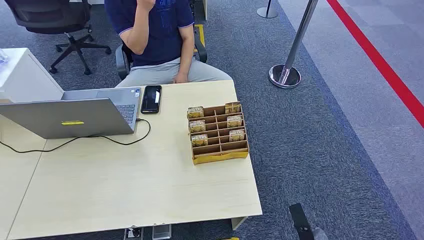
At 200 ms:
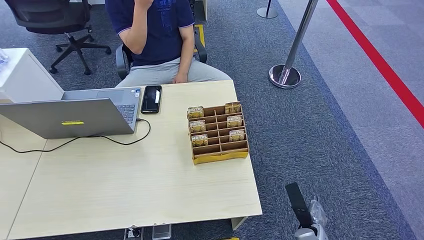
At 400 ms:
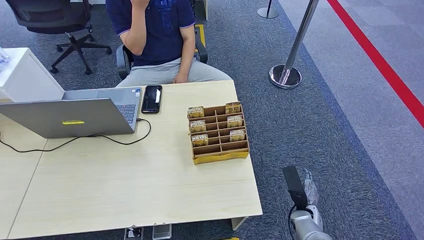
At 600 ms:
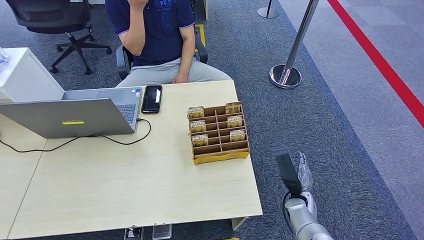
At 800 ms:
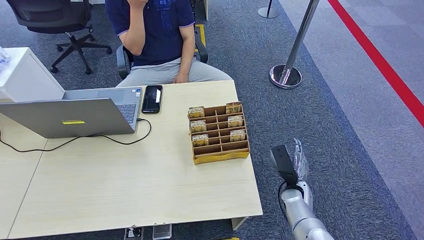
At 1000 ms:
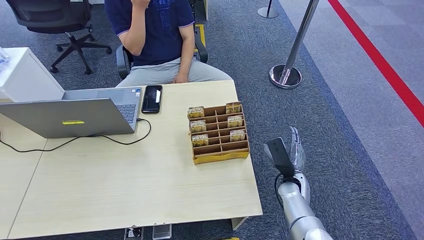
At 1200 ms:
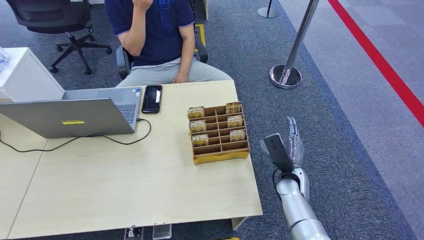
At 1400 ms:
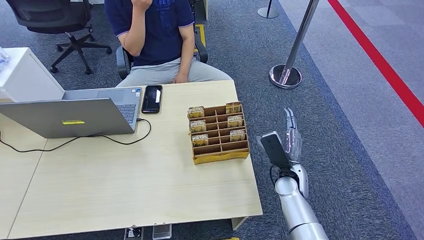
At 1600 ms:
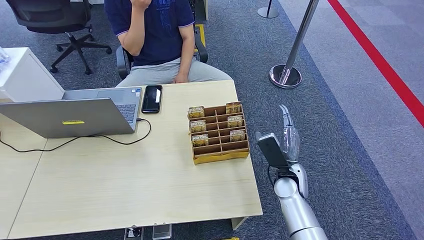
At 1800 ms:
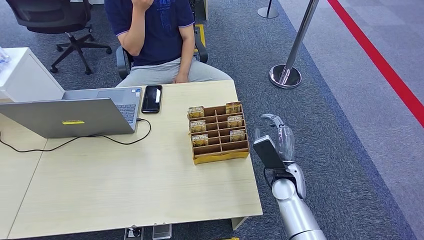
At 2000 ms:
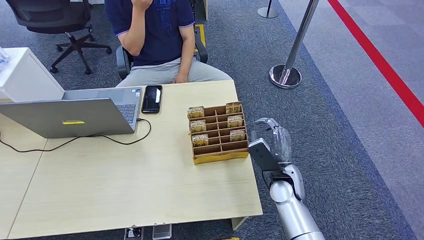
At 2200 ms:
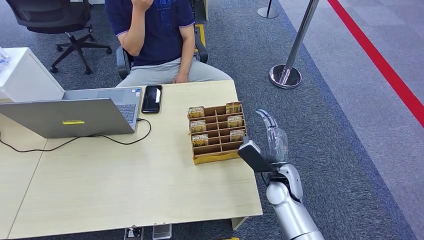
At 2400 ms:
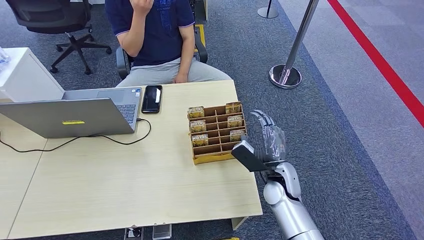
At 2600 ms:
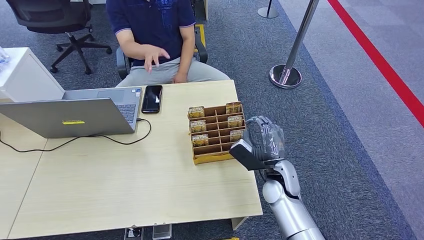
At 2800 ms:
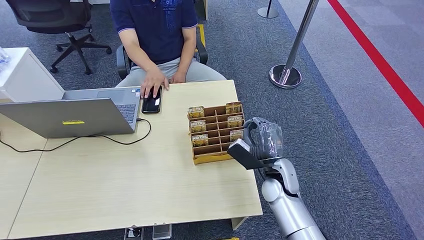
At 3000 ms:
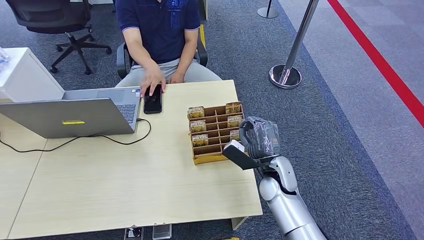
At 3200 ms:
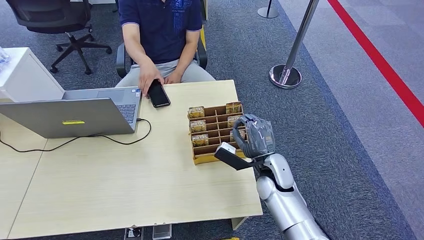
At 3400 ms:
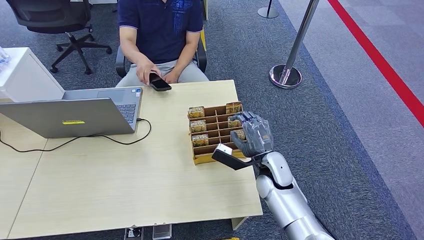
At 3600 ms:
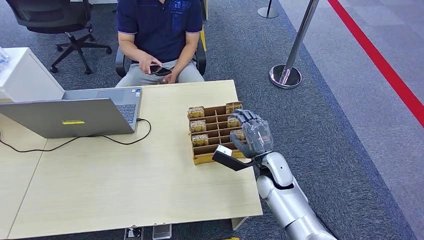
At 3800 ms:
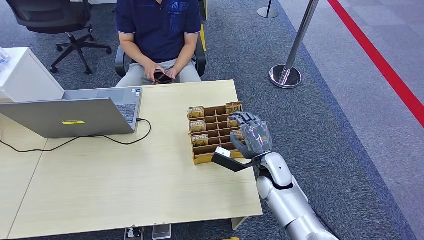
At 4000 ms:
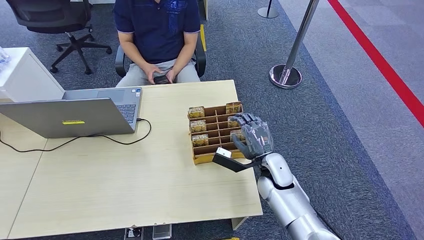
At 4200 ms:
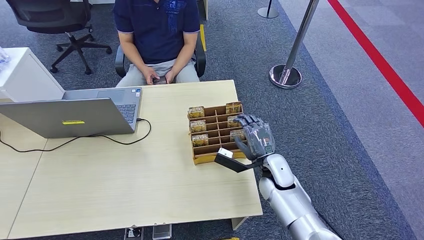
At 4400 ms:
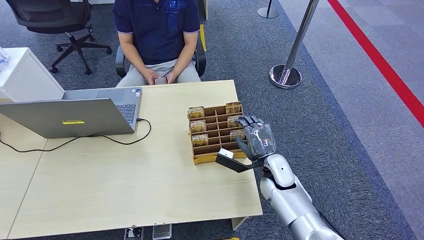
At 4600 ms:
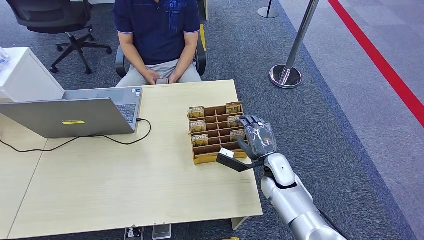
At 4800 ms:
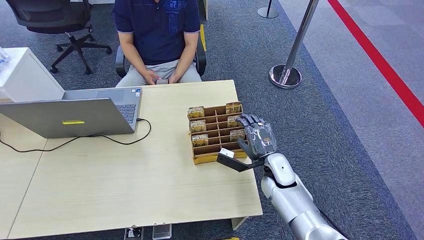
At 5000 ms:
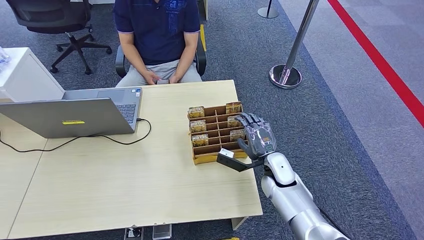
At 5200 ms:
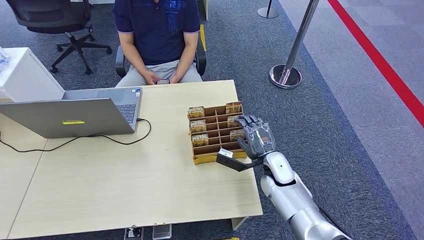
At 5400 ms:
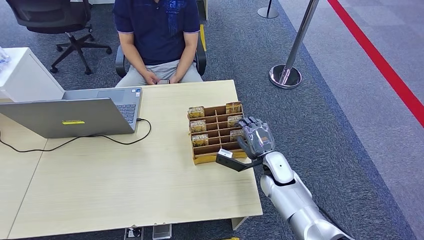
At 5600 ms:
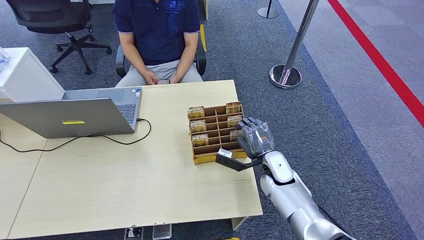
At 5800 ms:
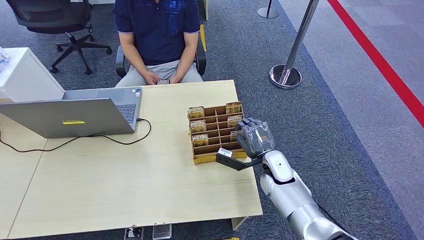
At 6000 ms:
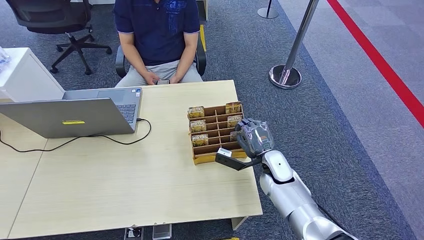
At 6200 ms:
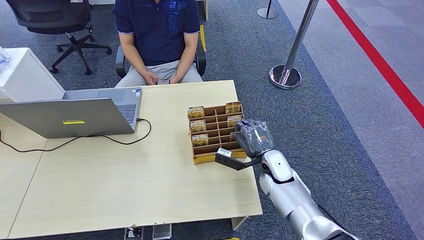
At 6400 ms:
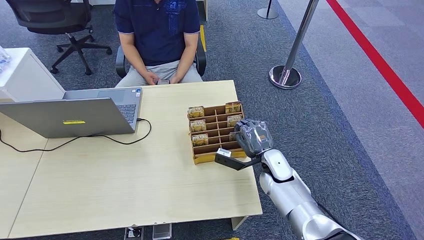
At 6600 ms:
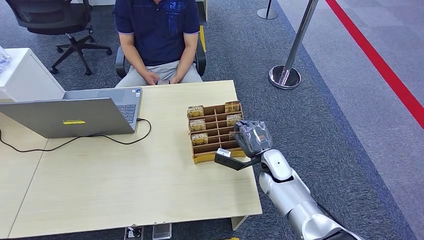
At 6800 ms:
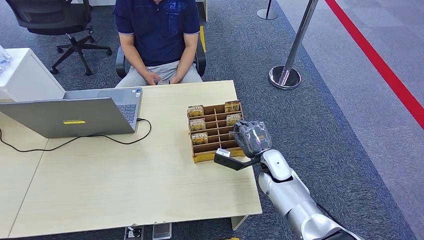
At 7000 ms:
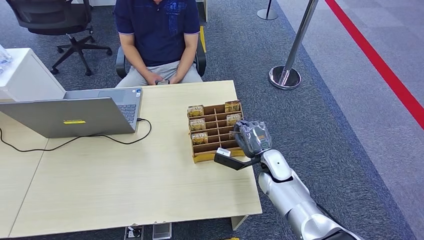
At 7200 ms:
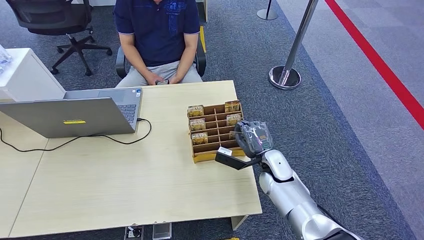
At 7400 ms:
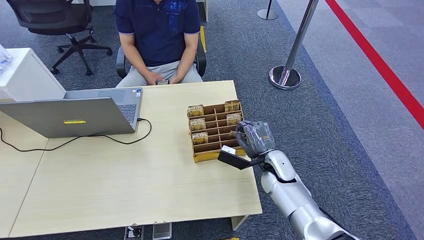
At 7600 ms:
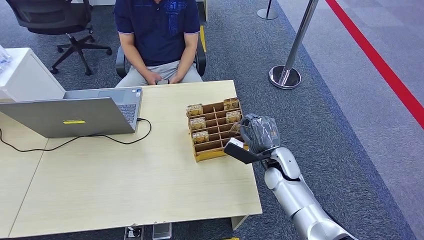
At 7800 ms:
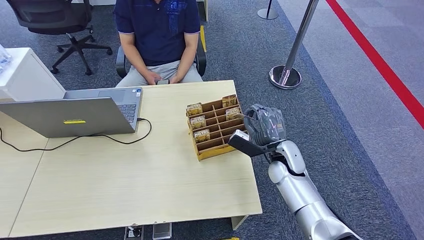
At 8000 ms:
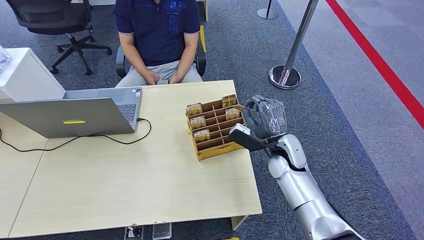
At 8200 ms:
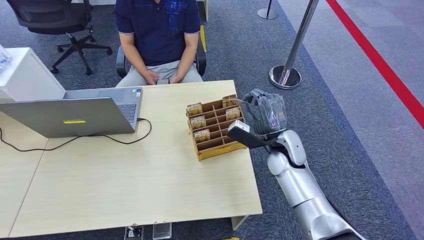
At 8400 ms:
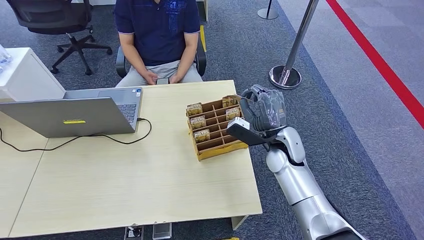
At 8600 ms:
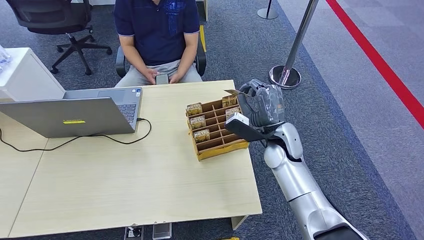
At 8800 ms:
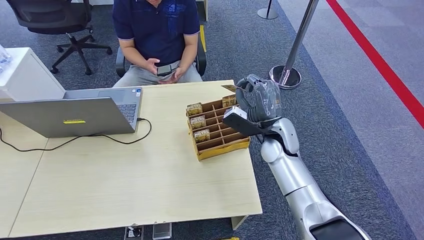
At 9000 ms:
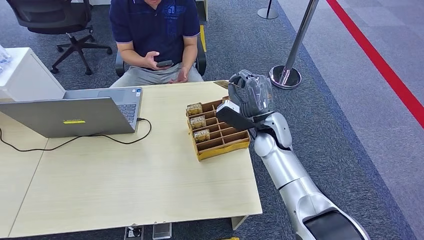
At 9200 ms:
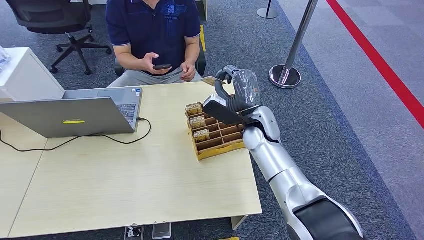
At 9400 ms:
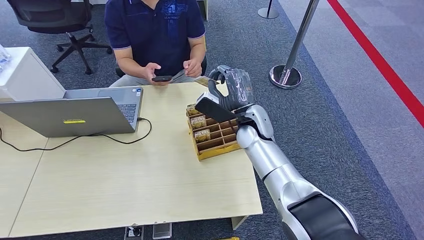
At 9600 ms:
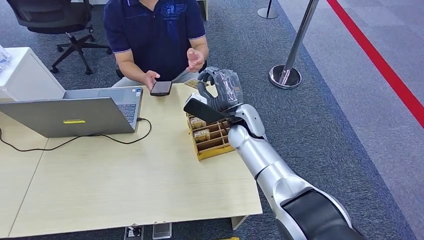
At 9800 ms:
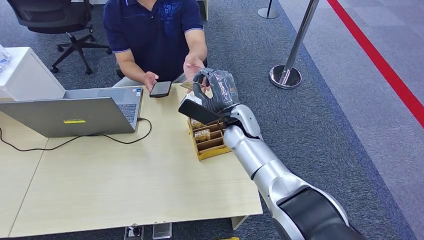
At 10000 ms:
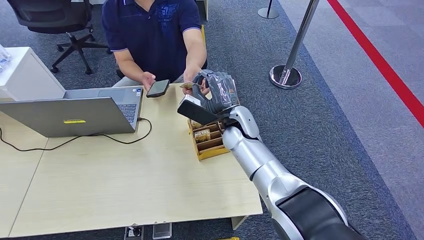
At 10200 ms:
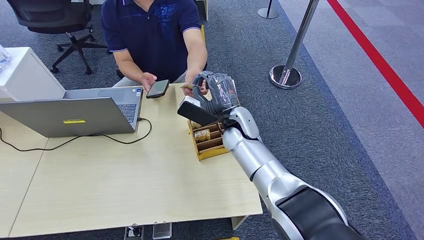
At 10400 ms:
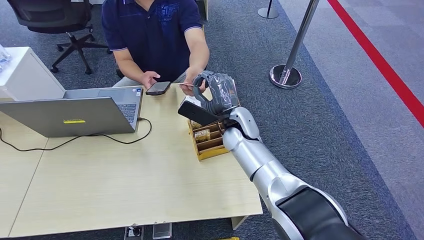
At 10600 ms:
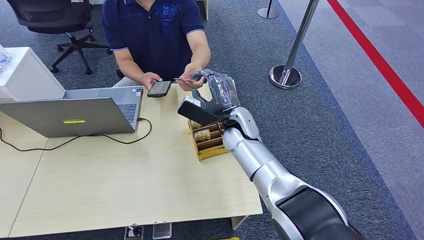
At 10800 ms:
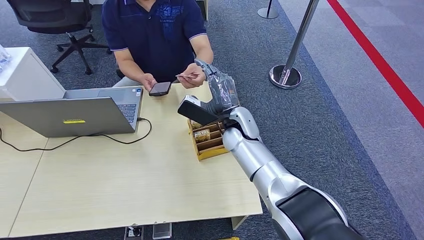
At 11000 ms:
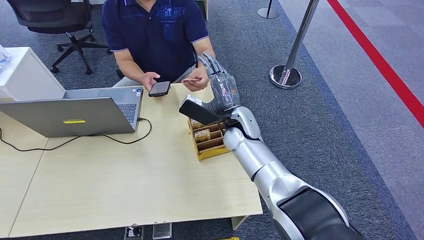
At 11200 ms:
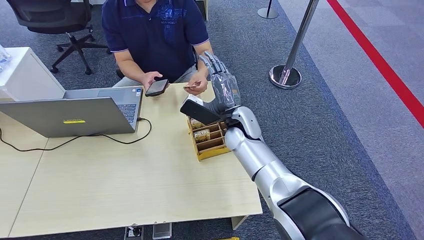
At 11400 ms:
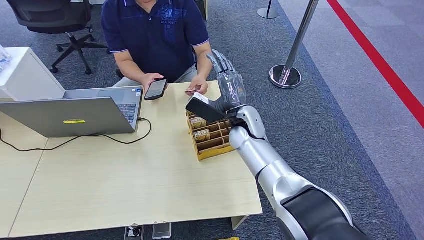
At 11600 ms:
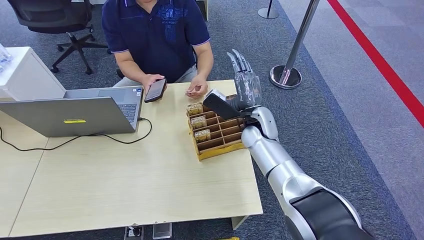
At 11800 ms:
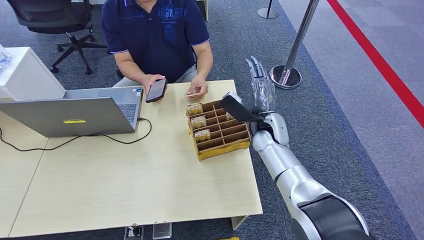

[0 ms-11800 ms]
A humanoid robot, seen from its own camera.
Step, 0 ms to 8800 ms: Pick up the room card from the card holder.
Step, 9000 ms to 11800 ms: Hand the room card to the target.
1400 ms to 3000 ms: The right hand heads to the left, covering some 5 cm.
4400 ms to 7400 ms: The hands move only a little.
7400 ms to 8800 ms: The right hand heads upward, covering approximately 10 cm.
8800 ms to 10400 ms: The right hand travels to the left by roughly 10 cm.
10400 ms to 11800 ms: The right hand shifts roughly 10 cm to the right.
